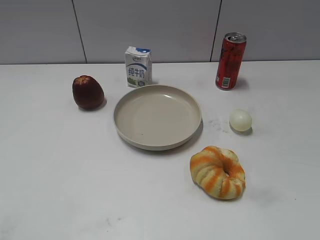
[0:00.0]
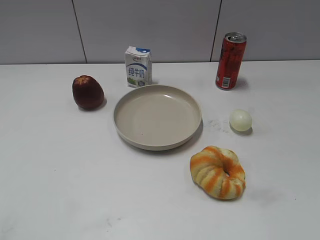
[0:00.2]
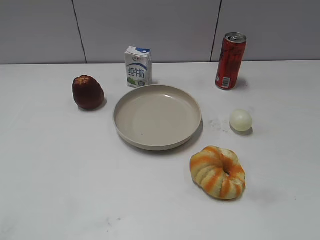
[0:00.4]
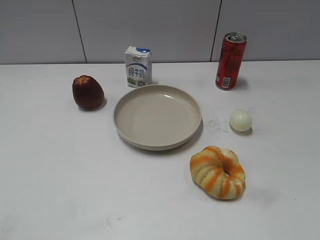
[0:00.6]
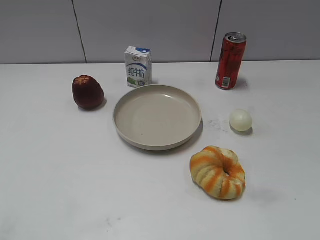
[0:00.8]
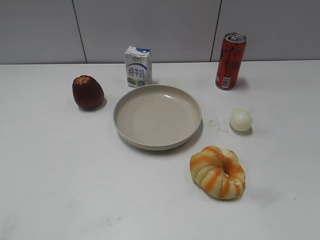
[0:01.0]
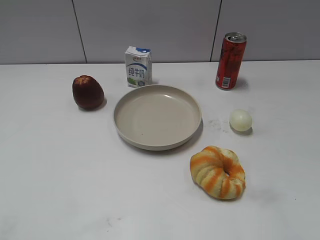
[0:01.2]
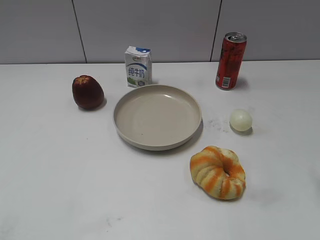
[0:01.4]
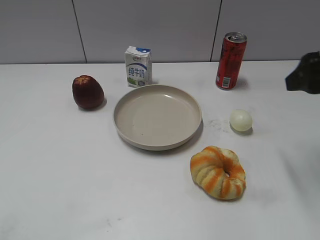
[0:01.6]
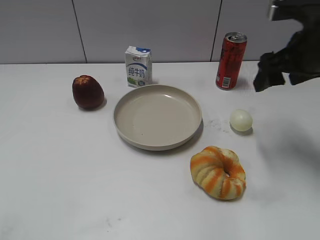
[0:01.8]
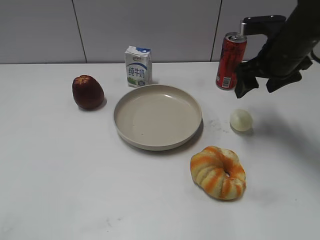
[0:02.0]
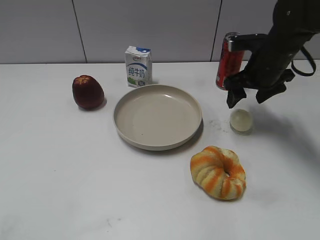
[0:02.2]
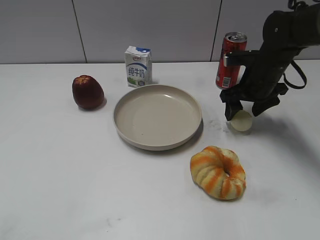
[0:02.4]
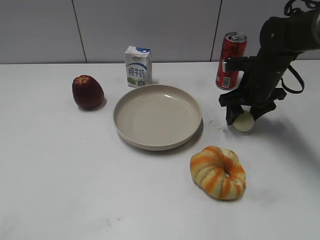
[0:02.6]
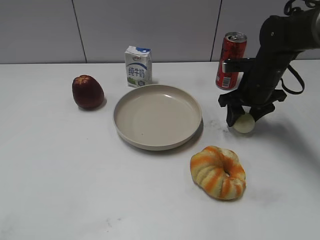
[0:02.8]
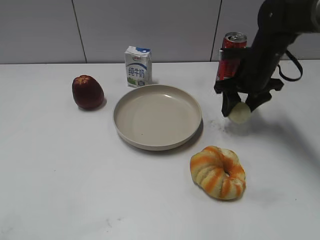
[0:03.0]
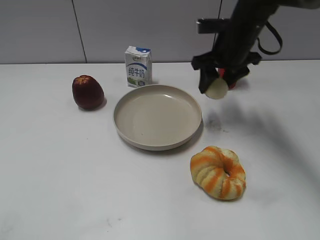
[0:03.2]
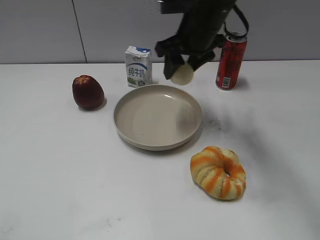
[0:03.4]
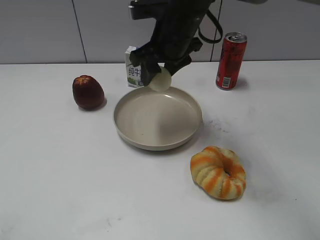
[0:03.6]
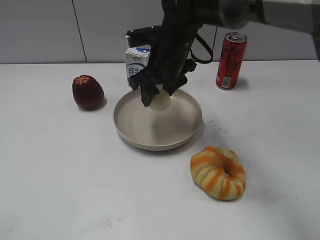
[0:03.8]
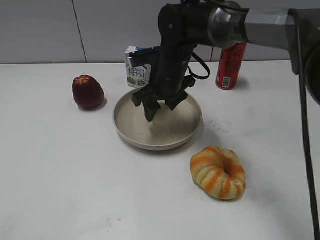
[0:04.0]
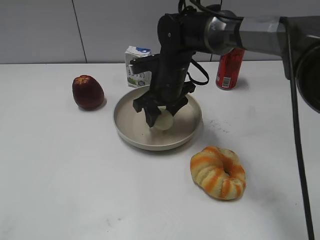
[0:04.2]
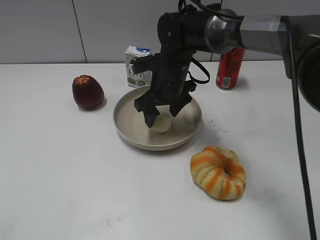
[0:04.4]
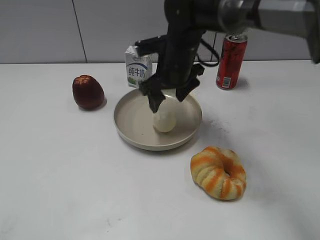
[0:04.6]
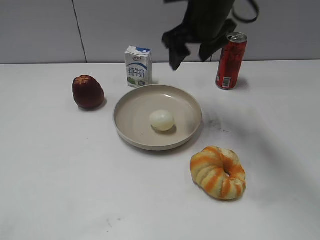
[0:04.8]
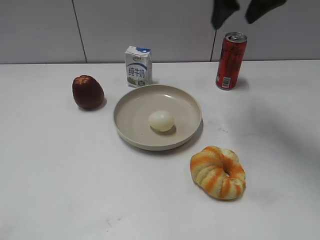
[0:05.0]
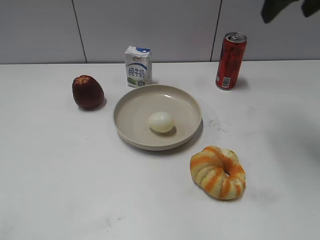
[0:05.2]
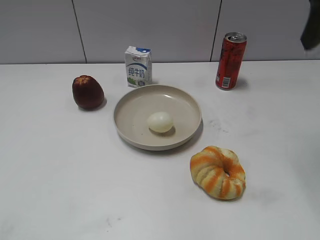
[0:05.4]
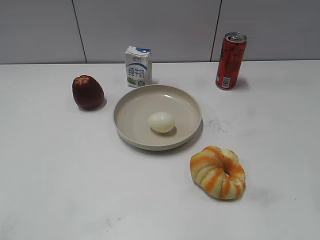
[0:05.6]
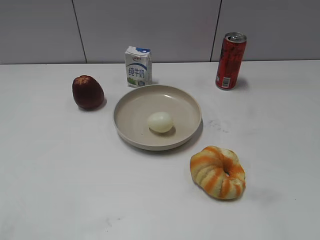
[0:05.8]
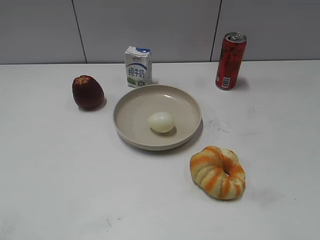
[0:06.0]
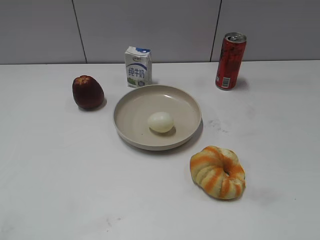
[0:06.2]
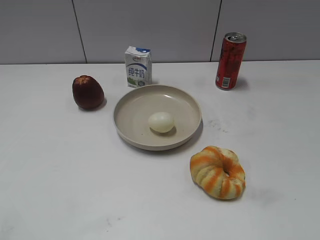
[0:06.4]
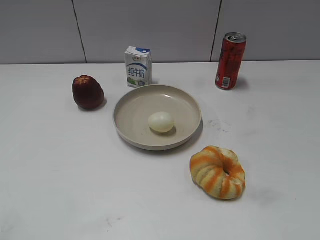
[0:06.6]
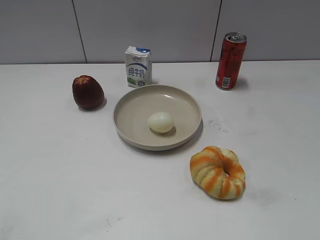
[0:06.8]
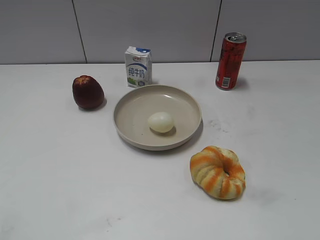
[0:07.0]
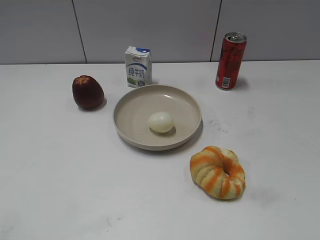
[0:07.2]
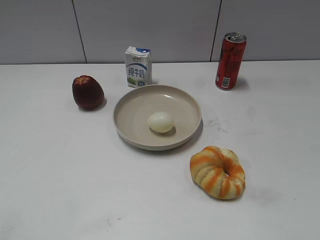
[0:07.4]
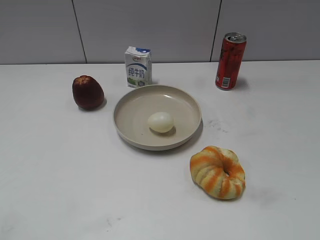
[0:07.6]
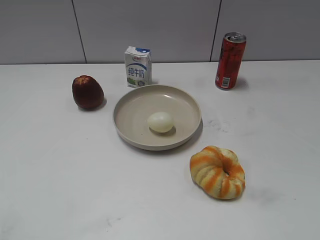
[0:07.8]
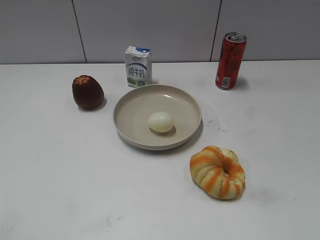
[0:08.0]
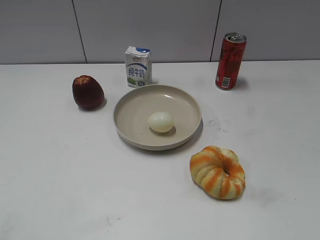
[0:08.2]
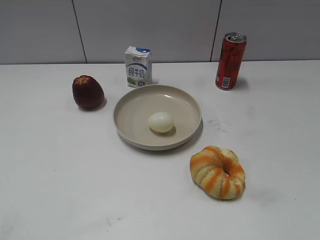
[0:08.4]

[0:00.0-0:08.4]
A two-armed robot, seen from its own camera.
Step, 0:00.8 to 0:02.6: Grasp the egg with right gripper.
Step, 0:02.8 to 0:04.6: Place the egg on the plate with right gripper.
0:01.4 to 0:02.8: The right gripper shifts roughly 30 cm forward and downward, and closes up.
0:02.8 to 0:04.2: The right gripper shifts some 20 cm to the left.
0:04.2 to 0:05.6: The right gripper goes about 40 cm to the right, upward and backward, and opens up.
